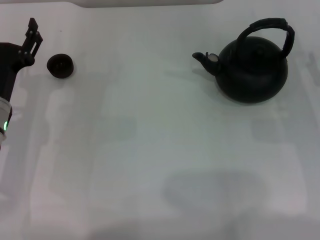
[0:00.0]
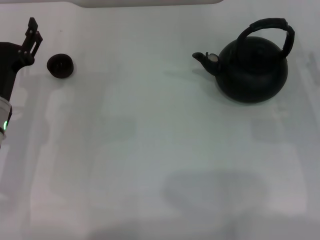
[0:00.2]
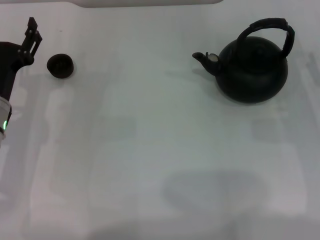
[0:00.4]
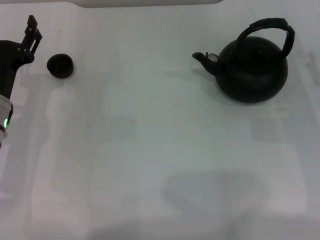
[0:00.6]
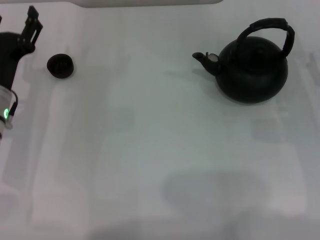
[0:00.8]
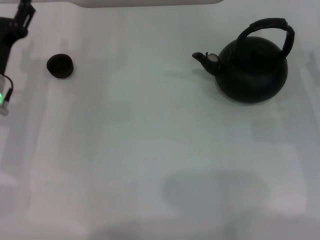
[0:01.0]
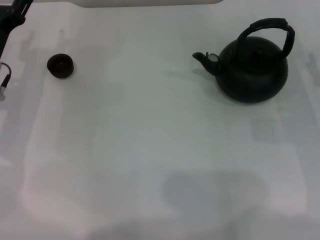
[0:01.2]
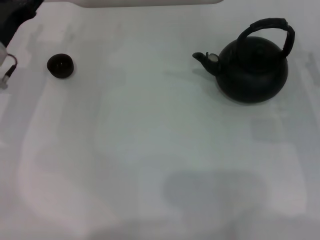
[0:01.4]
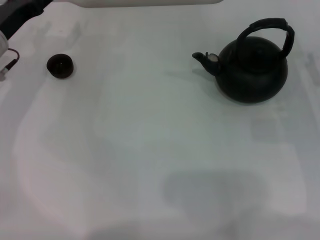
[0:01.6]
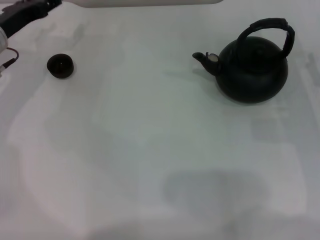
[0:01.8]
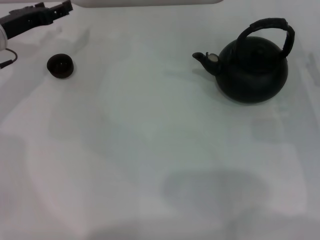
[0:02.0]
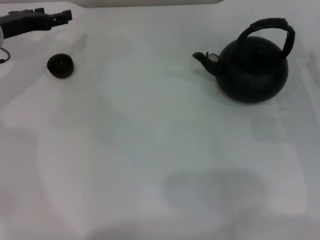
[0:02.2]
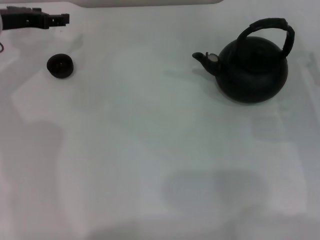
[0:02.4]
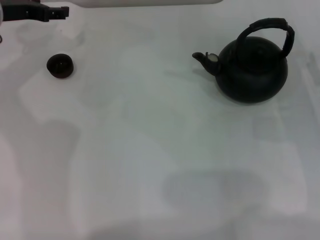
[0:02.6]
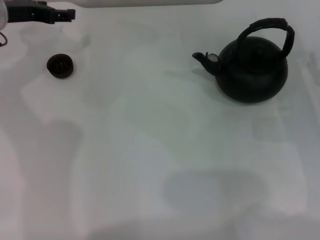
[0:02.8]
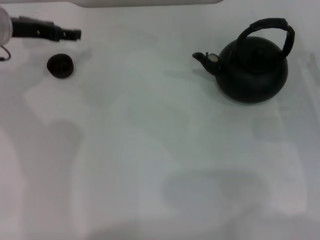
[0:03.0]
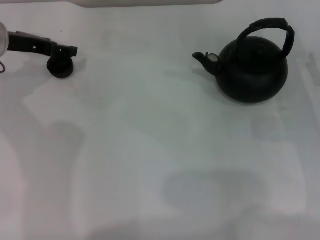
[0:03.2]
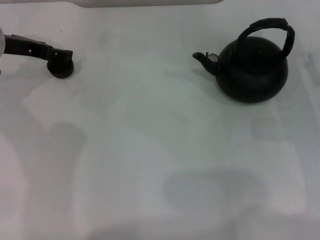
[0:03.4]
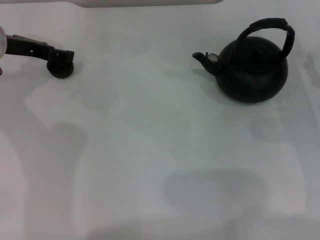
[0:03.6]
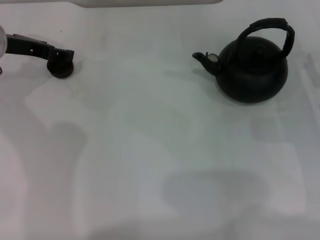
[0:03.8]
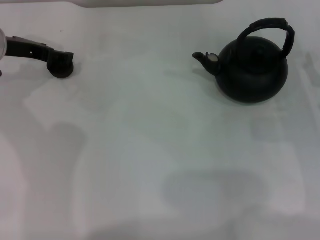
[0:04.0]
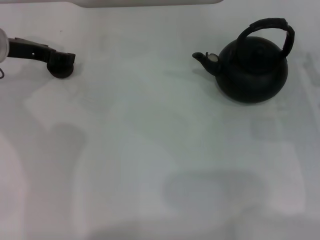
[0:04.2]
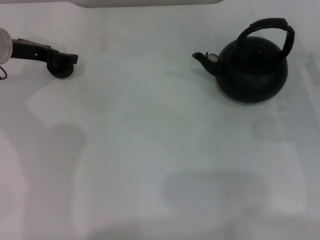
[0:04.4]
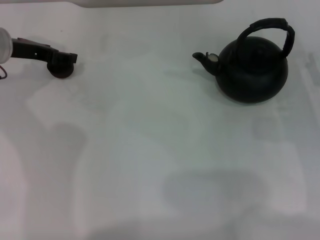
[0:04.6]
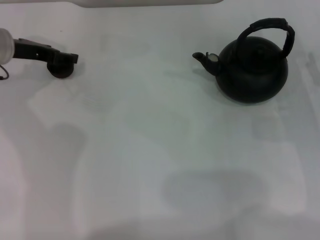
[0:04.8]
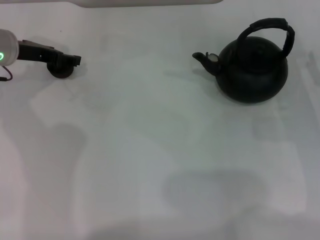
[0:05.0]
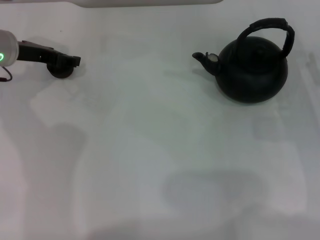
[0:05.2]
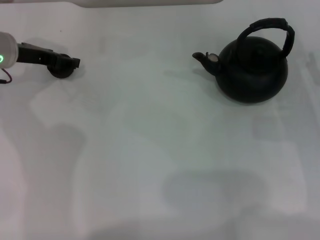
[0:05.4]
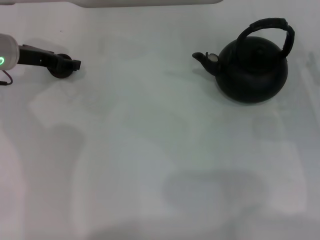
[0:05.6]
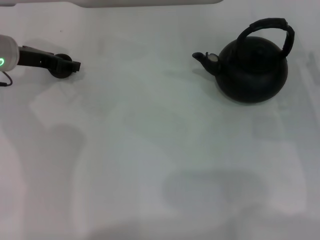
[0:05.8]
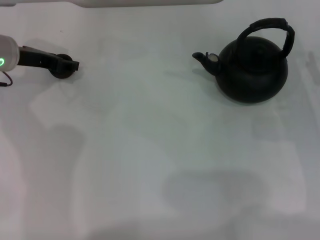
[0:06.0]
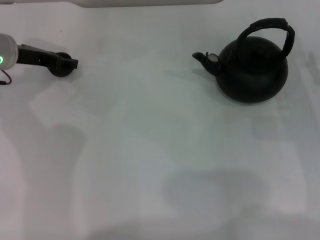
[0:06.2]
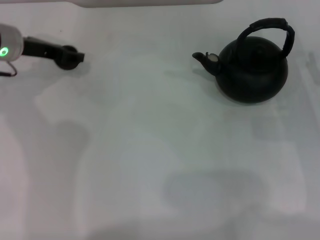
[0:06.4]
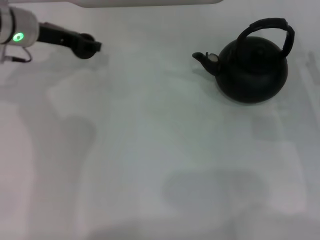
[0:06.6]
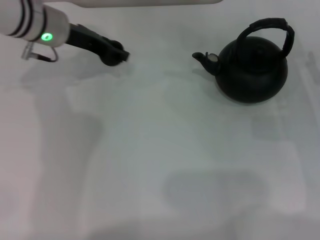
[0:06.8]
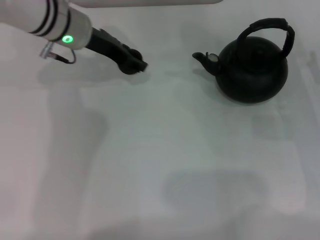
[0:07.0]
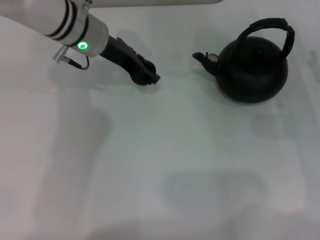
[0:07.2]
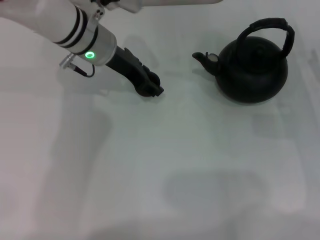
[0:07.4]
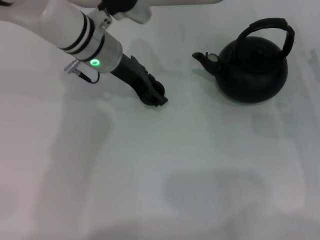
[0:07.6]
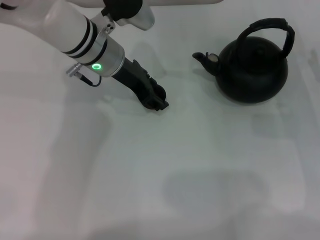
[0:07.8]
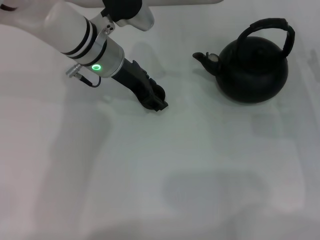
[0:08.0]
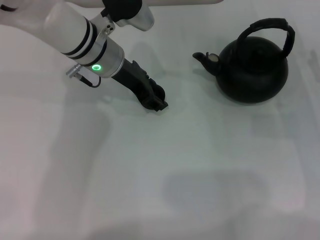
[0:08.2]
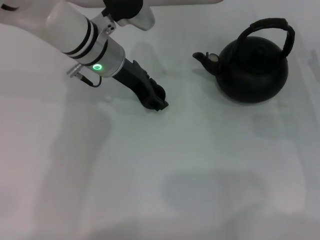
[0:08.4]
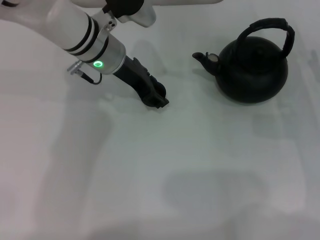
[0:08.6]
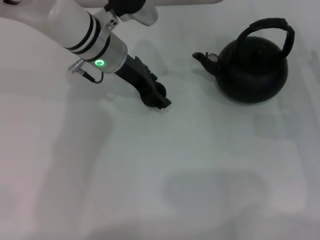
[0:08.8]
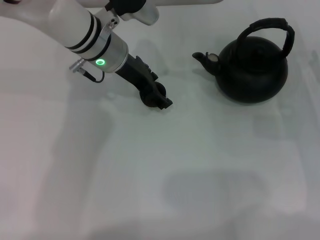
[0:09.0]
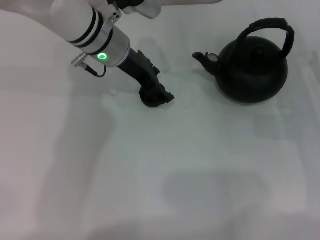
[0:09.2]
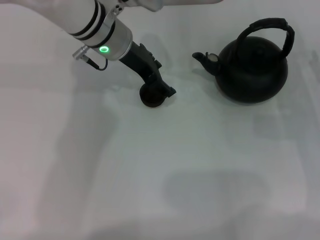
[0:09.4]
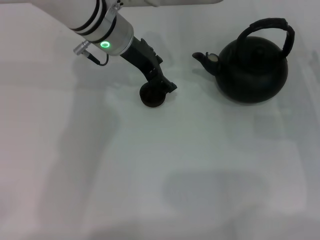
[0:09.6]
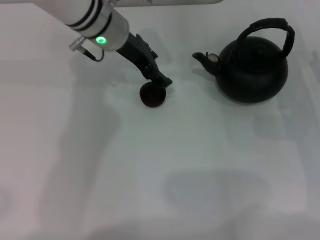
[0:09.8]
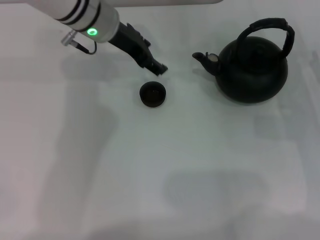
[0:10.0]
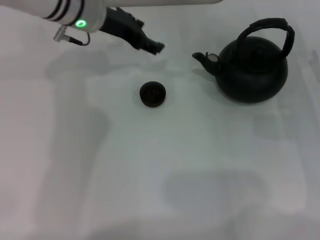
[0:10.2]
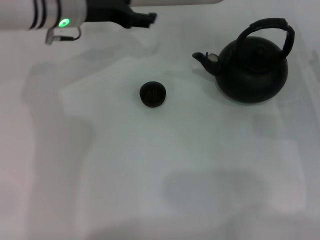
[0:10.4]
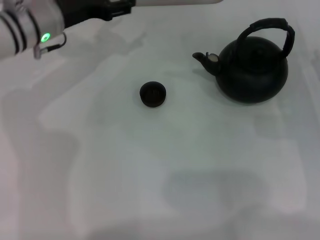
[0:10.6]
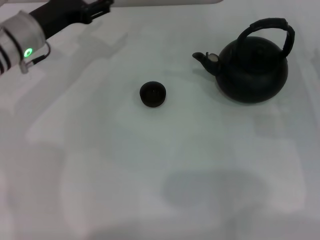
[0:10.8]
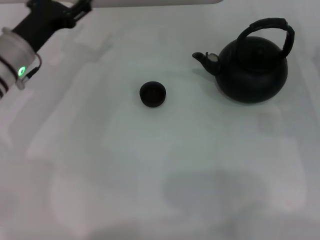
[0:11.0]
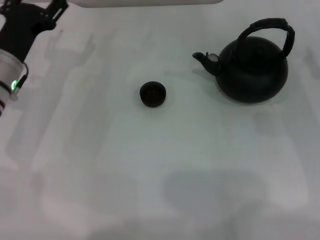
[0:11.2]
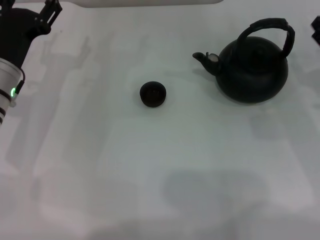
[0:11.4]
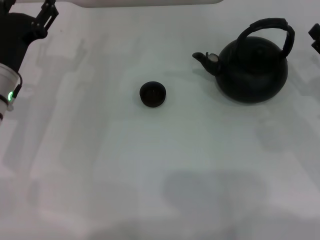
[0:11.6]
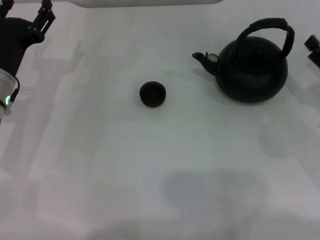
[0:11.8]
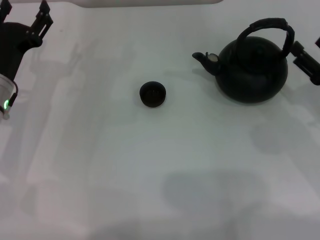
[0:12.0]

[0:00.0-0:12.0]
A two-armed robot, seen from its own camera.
Task of the whole recording: Grasp the handle of the teapot with one hand and pour tea into the teacup.
Step, 0:00.0 to 0:06.4: Pick up the teacup with the left gripper.
Step, 0:06.6 to 0:10.0: Place the teacup in the center of view with the left gripper.
0:00.0 to 0:01.6: The left gripper travels forward by approximately 10 cm.
0:01.6 to 0:03.0: The left gripper changes place by approximately 5 cm.
0:03.0 to 0:06.0: The grippers make only small movements.
0:06.0 to 0:07.6: The left gripper goes roughly 15 cm to the right, and closes up.
0:07.6 to 0:09.0: The left gripper opens its fingers.
0:09.0 to 0:10.4: The left gripper is displaced to the left by roughly 5 cm, and opens its fingers.
0:10.4 to 0:12.0: The left gripper is displaced backward, downward and to the left by approximately 15 cm.

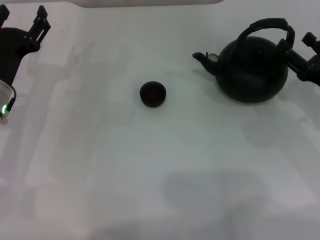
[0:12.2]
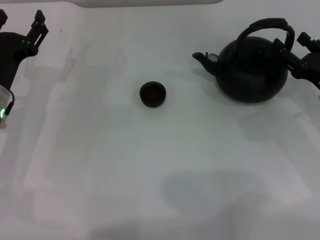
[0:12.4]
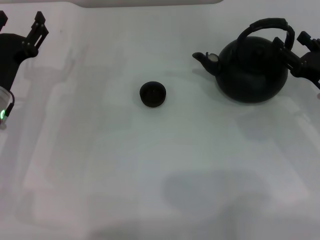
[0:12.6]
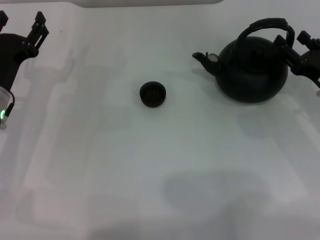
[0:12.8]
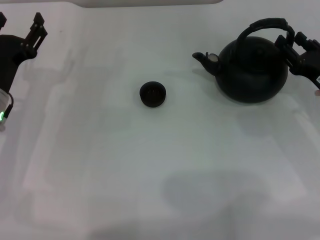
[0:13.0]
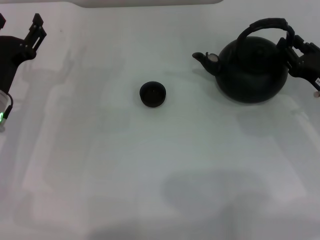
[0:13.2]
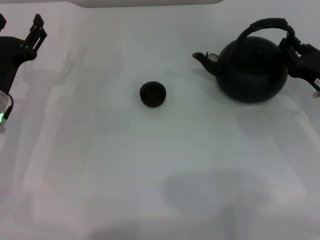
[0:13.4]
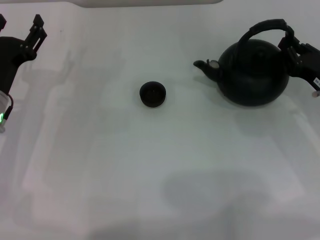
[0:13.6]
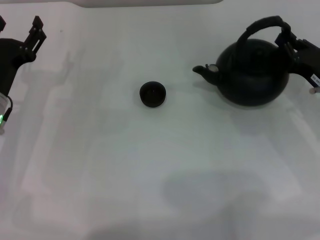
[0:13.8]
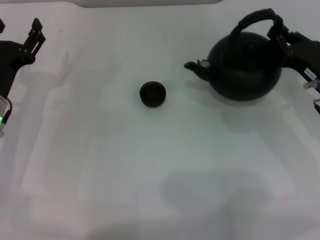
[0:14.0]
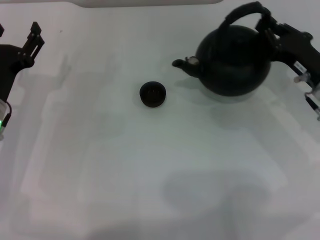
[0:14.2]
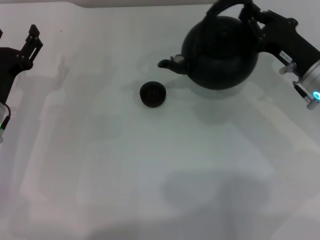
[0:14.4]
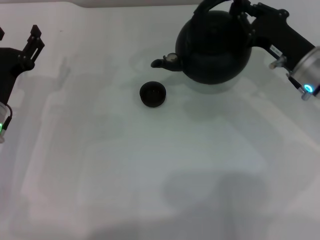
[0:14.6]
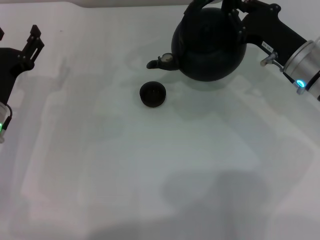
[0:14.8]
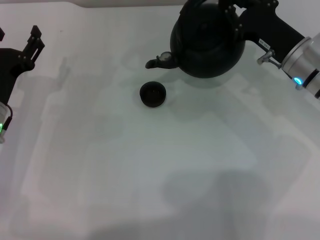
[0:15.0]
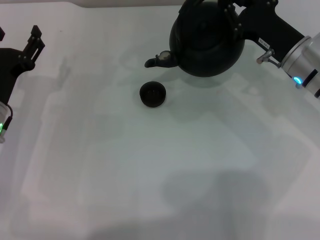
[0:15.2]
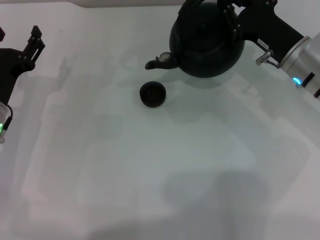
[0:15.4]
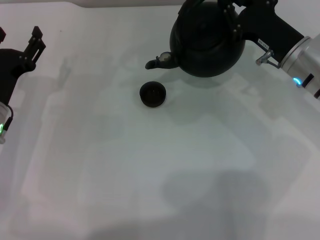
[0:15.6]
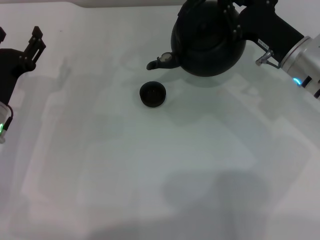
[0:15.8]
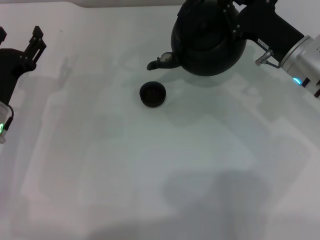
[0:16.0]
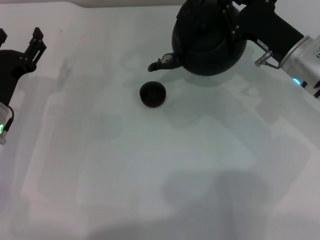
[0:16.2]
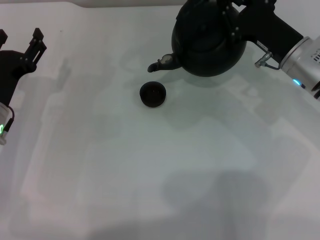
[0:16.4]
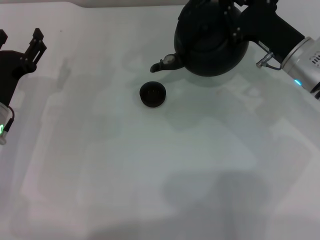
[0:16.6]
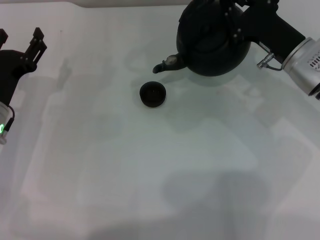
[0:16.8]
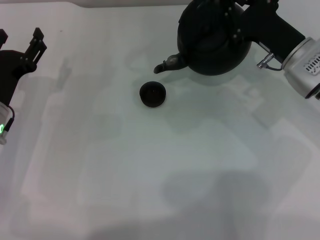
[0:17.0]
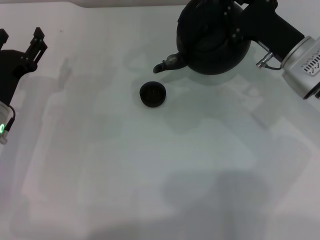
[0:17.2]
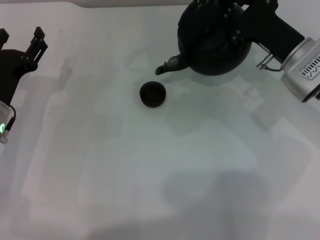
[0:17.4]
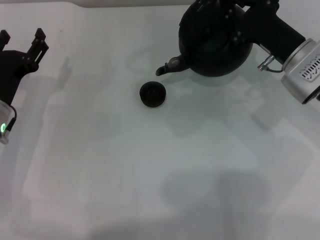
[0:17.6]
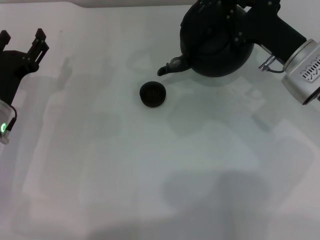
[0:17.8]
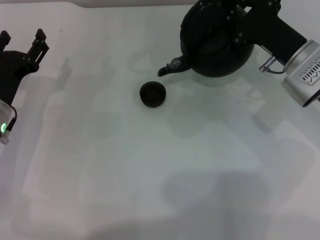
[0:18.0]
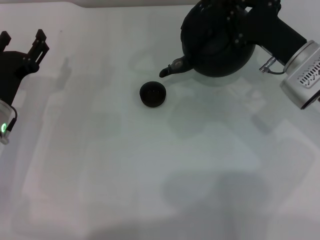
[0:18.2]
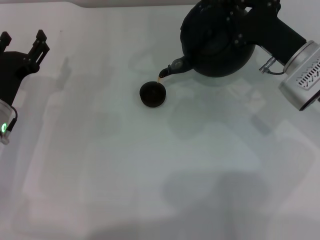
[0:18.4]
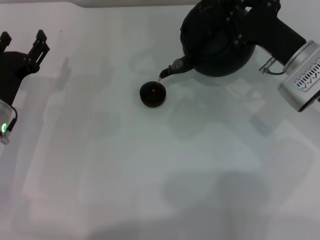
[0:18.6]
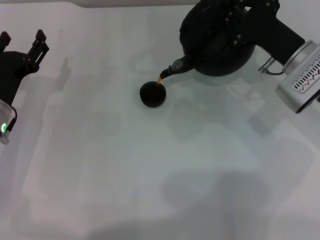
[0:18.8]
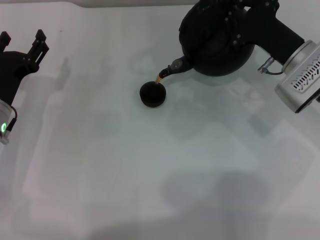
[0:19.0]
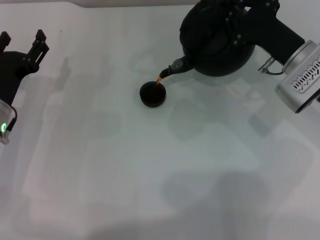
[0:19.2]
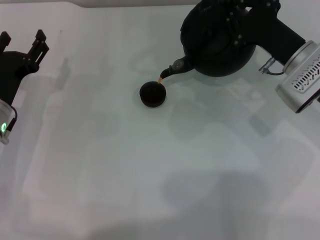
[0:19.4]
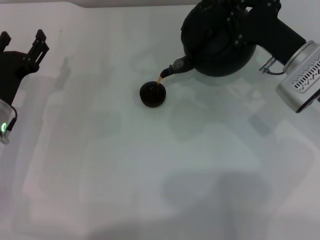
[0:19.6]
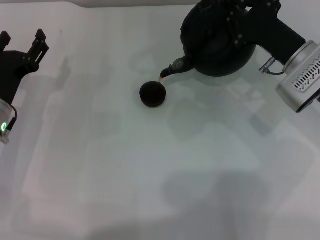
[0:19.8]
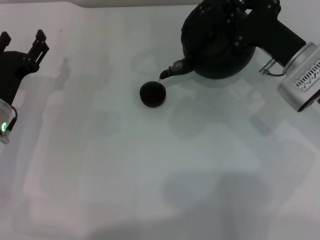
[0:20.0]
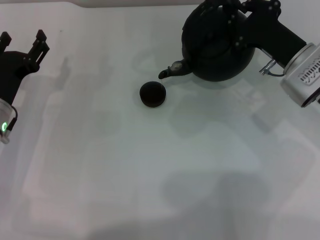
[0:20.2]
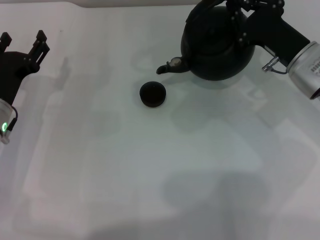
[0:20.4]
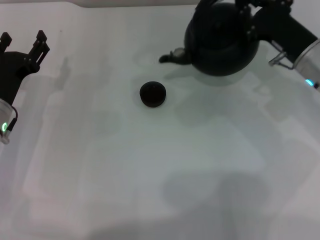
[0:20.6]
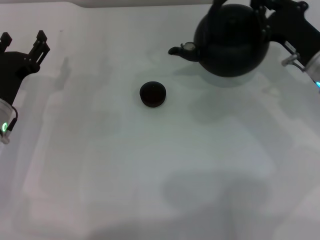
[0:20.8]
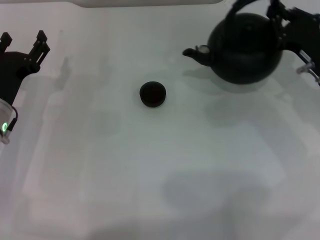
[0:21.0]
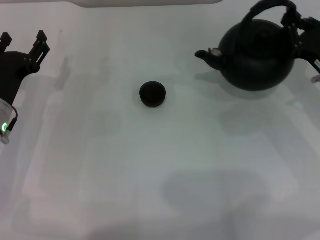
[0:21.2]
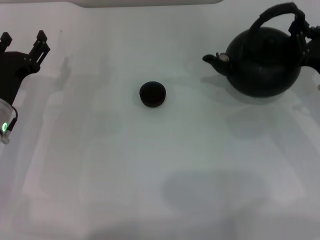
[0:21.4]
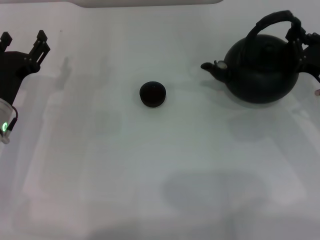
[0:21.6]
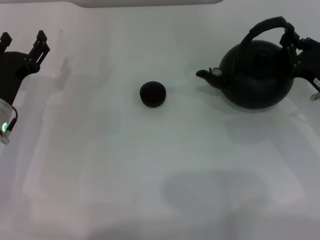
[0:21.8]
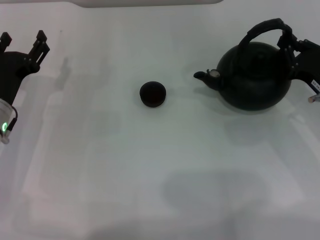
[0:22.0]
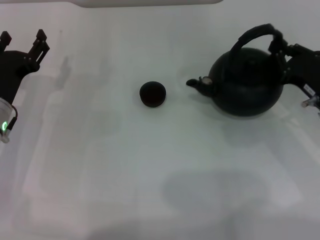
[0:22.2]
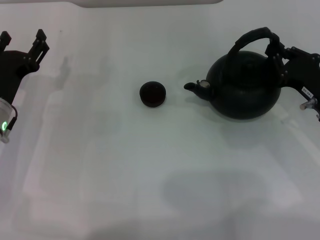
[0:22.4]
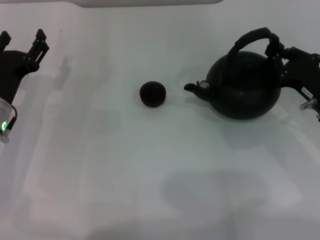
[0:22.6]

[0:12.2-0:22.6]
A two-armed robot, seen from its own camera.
Task of the whole recording: Grasp the handle of the teapot with one hand and pour tea into the teacup.
Step, 0:12.2 to 0:14.4: Pick up the teapot with the right gripper.
Step, 0:14.6 to 0:20.2: Pour tea into the teacup with the right gripper.
0:12.2 to 0:13.6: The right gripper closes.
0:13.6 to 0:15.2: The right gripper moves to the left and forward, some 10 cm.
0:15.2 to 0:16.6: The grippers stay close to where they were, moving slightly.
0:16.6 to 0:18.2: The grippers move only a little.
0:18.2 to 0:19.6: Both grippers stay put.
0:19.6 to 0:21.2: The right gripper travels to the right by approximately 5 cm.
0:21.2 to 0:22.6: The grippers stay close to where they were, moving slightly.
